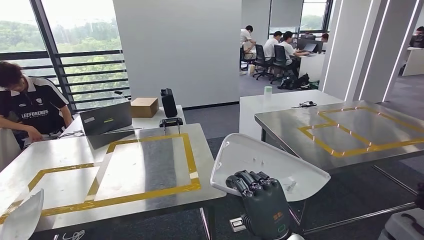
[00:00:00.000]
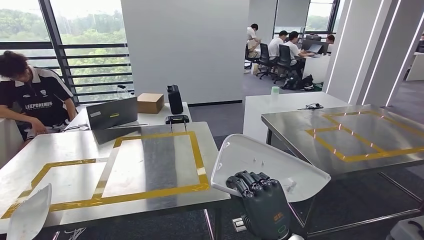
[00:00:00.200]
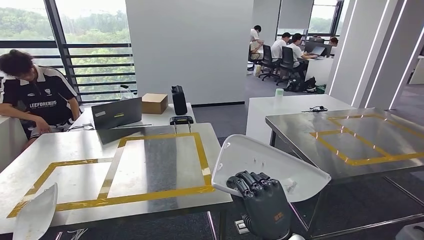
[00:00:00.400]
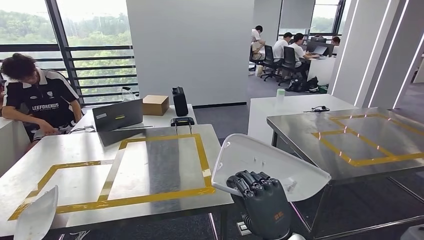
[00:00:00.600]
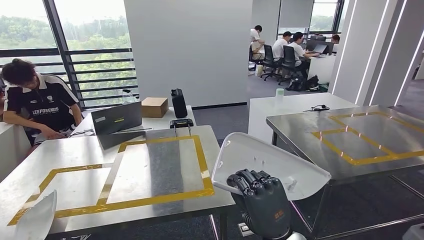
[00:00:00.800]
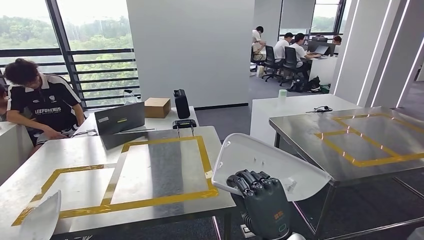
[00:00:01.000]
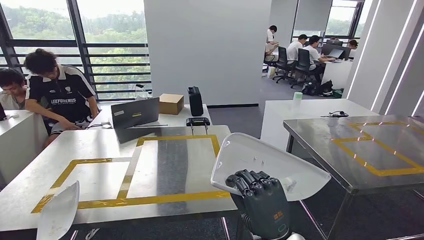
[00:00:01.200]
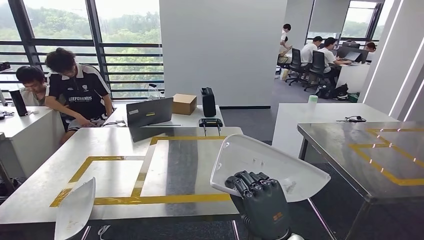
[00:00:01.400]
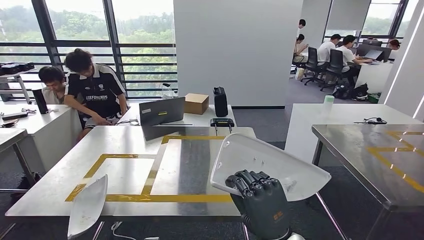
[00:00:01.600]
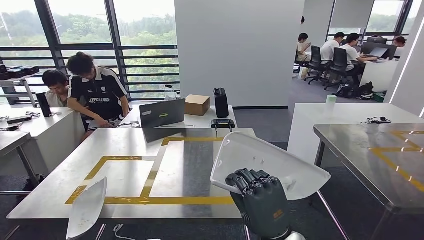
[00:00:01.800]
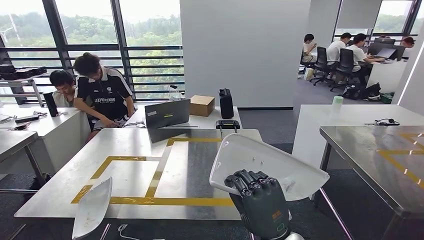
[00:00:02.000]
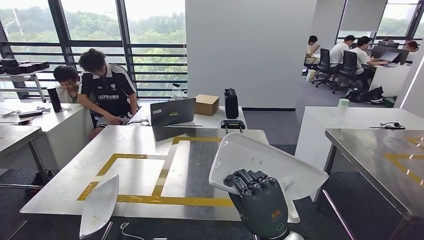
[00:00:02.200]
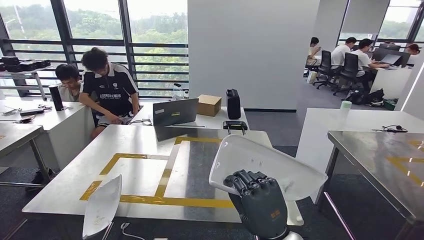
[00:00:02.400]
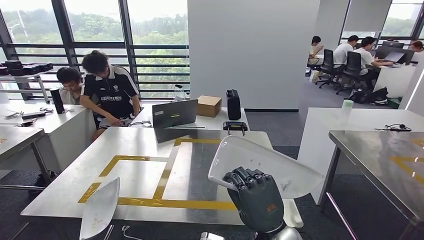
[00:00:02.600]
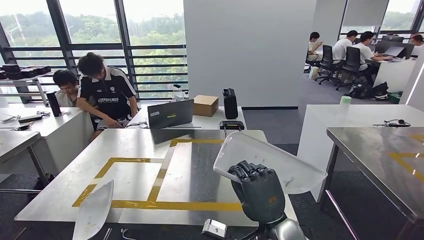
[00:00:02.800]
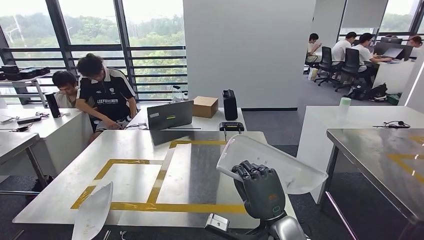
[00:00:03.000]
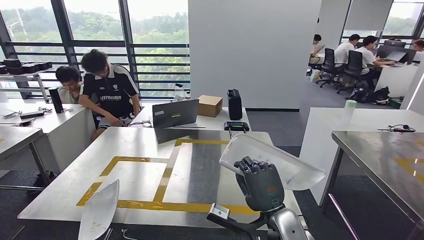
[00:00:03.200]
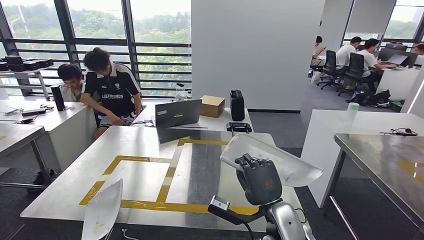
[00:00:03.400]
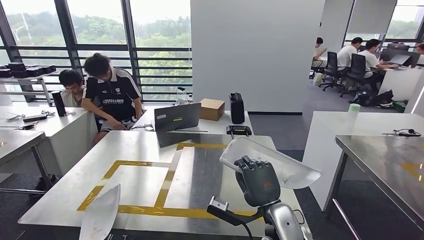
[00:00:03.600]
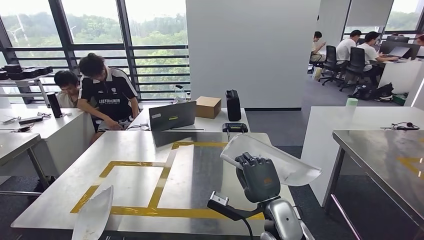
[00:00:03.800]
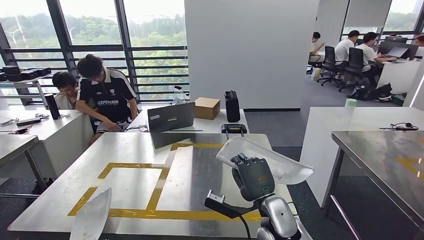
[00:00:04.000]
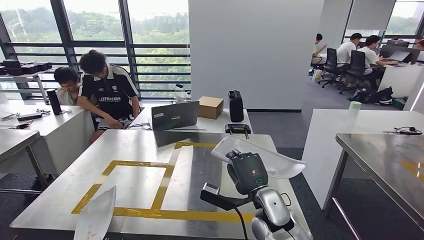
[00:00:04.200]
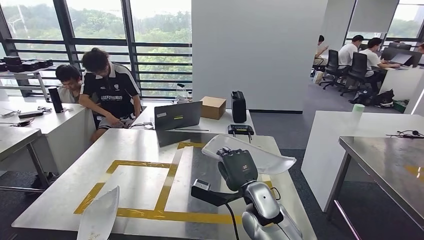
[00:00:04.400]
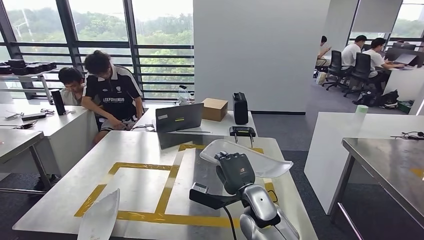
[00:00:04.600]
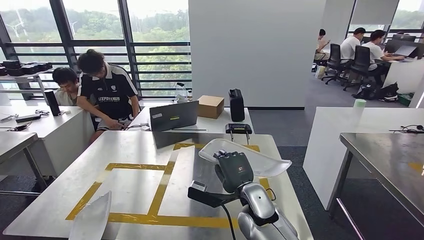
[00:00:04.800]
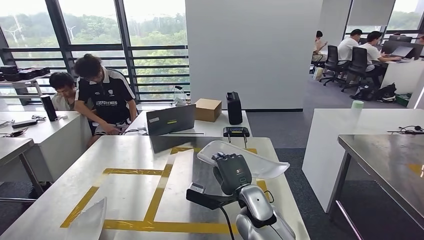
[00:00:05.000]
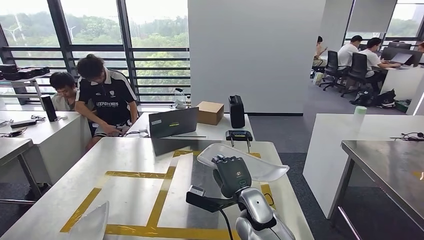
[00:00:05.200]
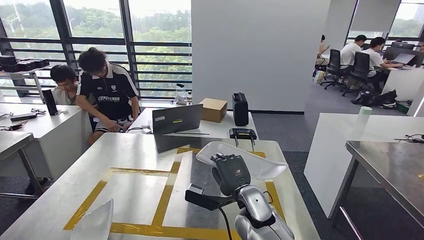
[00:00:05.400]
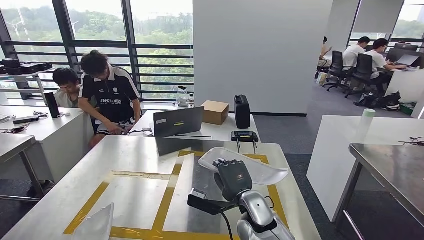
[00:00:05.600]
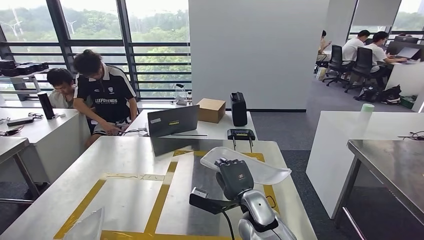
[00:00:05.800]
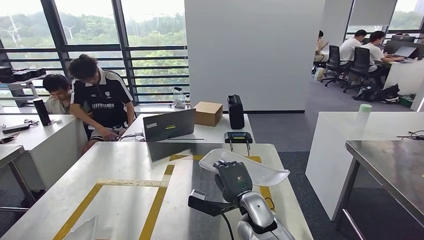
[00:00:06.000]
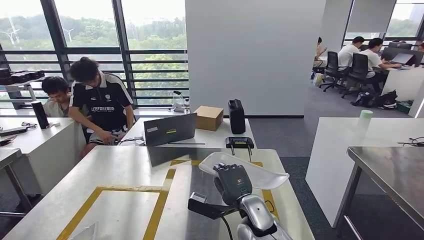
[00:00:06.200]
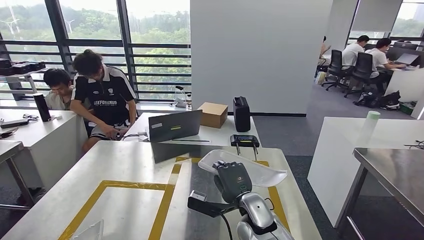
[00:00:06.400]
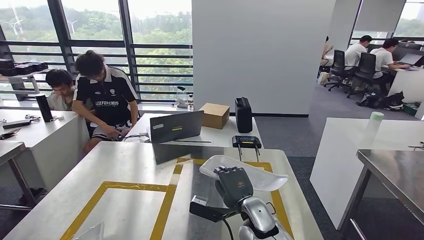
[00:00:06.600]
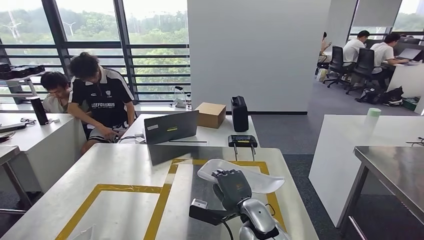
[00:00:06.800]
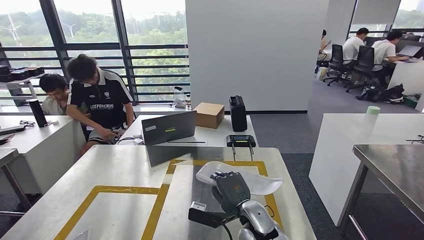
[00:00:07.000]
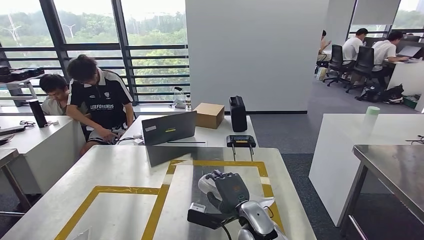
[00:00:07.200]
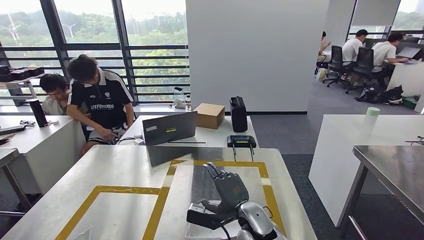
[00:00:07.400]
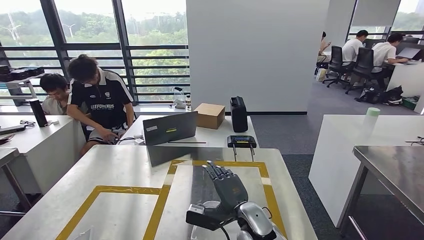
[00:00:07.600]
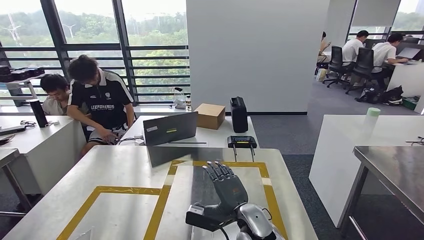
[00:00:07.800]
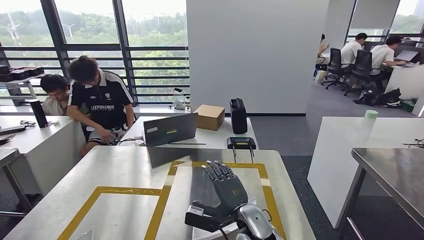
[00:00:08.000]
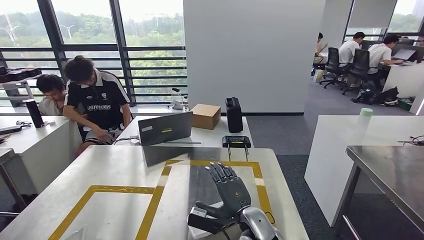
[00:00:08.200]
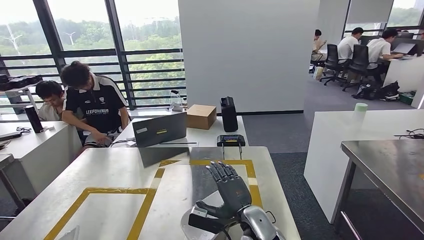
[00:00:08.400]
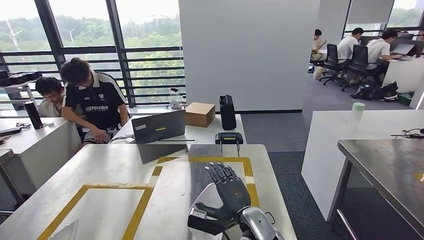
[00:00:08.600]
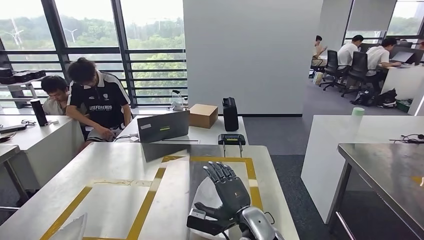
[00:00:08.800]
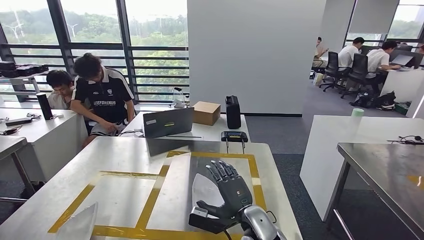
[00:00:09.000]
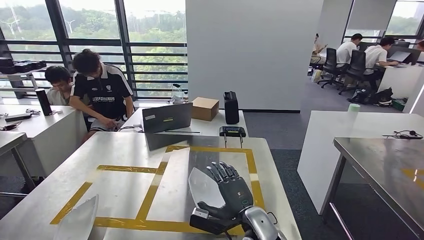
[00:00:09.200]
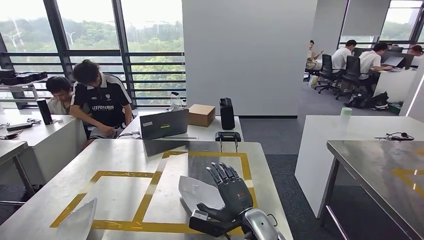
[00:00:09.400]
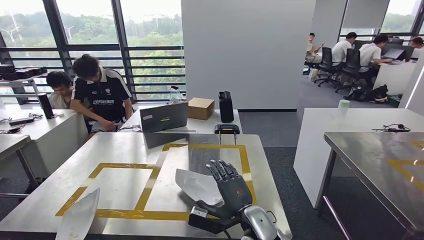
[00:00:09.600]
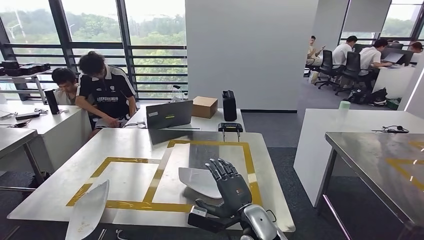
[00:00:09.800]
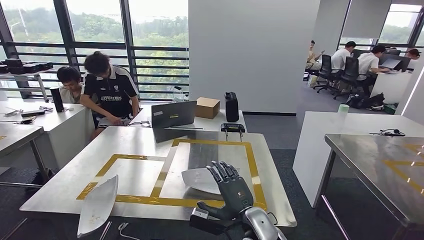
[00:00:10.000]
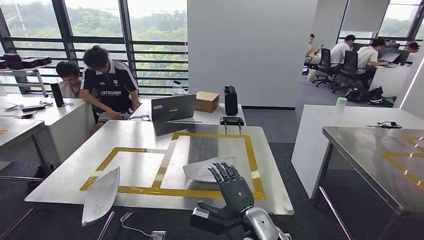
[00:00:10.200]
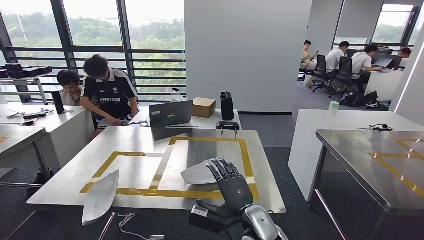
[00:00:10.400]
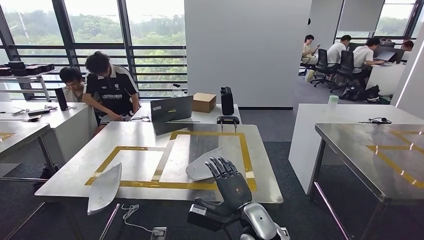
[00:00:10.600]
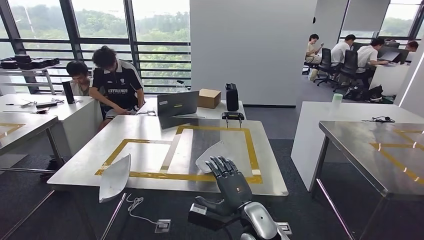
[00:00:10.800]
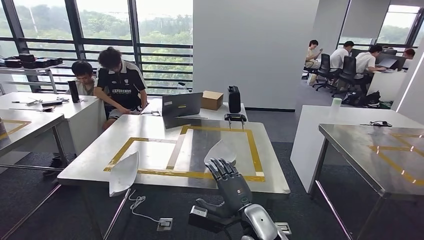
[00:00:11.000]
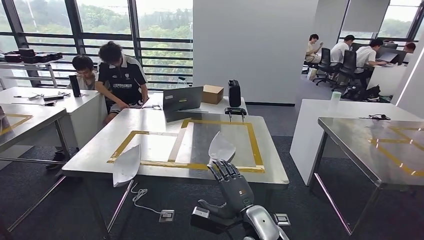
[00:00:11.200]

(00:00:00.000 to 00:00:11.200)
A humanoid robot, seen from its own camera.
Step, 00:00:00.000 - 00:00:09.400: Insert the small component into the corresponding slot on the workbench.

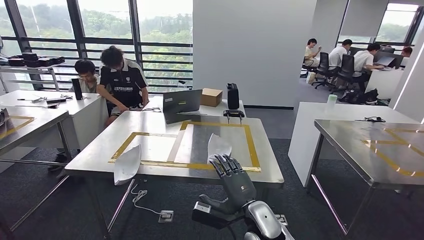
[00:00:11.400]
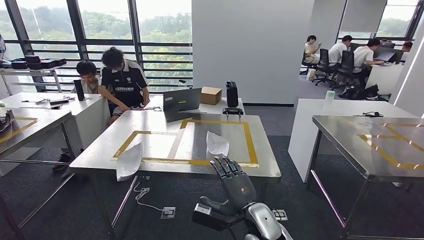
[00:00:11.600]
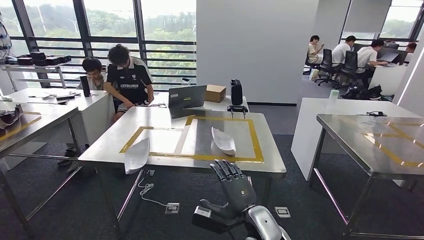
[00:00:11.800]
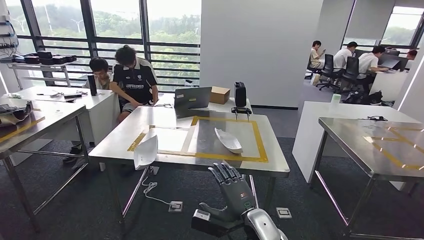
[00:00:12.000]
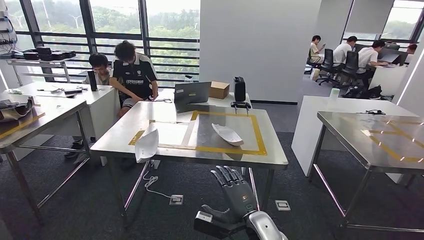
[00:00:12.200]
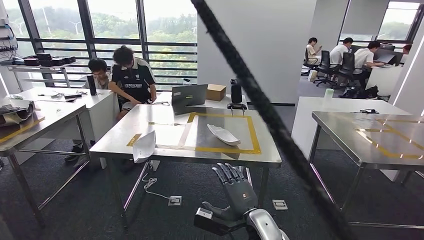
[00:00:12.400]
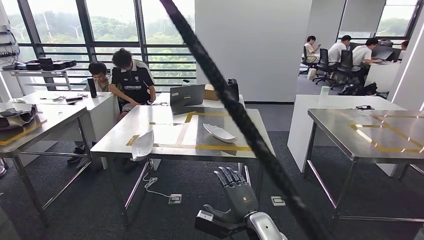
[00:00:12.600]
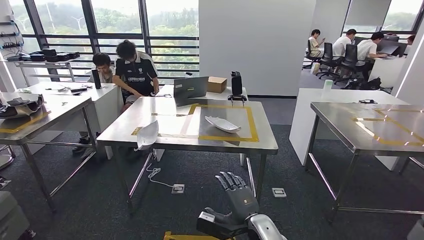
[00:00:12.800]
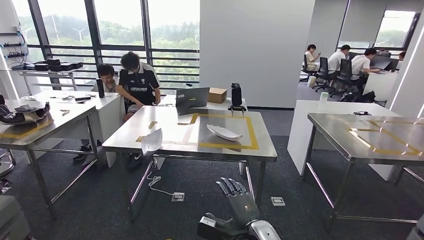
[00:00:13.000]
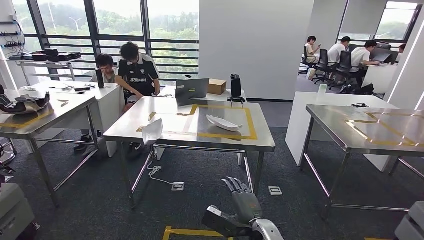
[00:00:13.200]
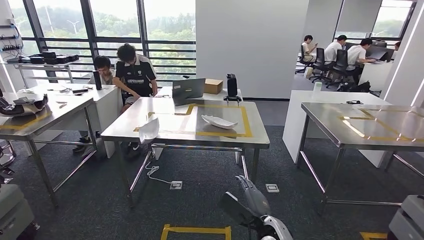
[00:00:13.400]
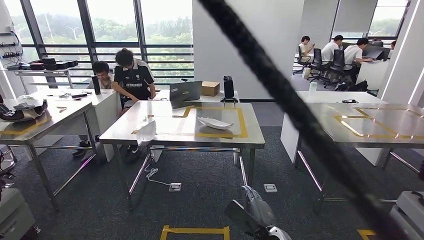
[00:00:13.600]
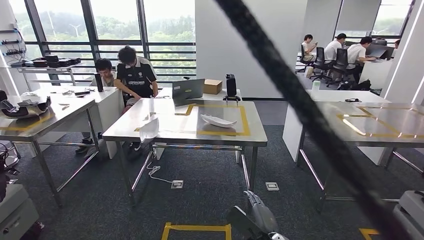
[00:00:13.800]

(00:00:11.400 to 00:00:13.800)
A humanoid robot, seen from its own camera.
Step, 00:00:11.400 - 00:00:13.800: Return to the initial position at the workbench.
